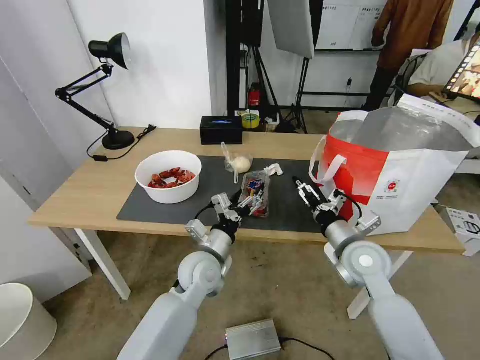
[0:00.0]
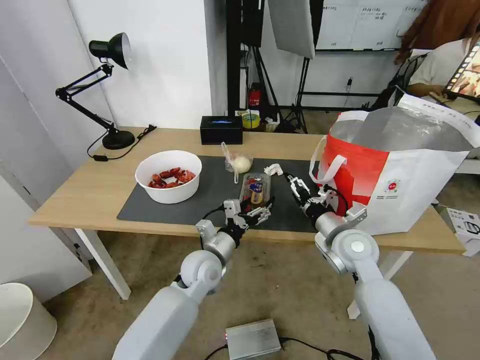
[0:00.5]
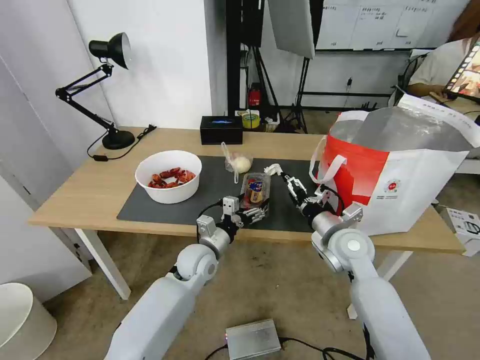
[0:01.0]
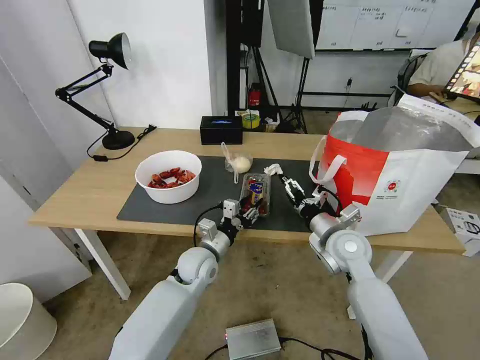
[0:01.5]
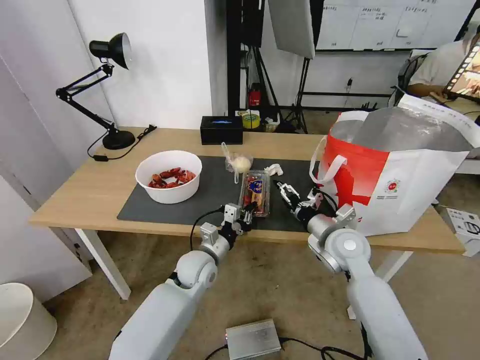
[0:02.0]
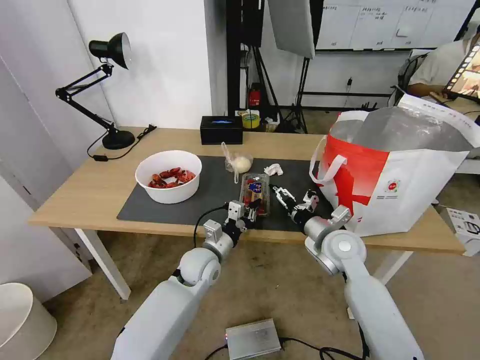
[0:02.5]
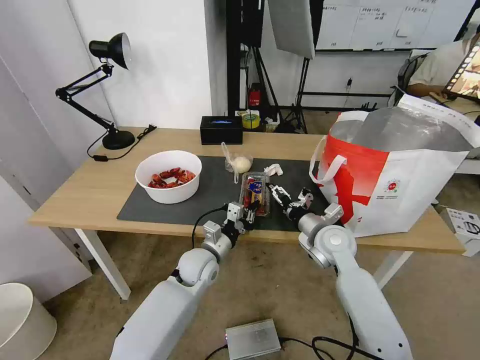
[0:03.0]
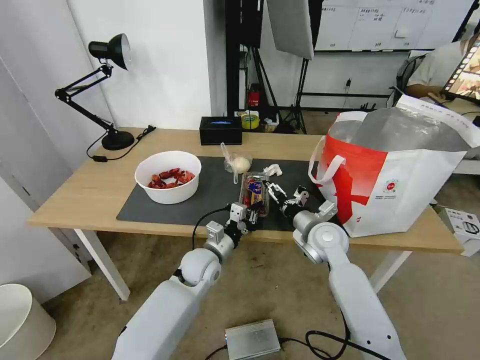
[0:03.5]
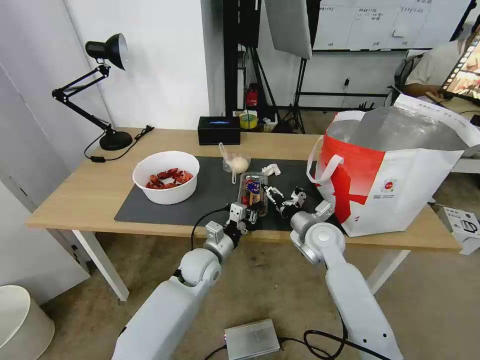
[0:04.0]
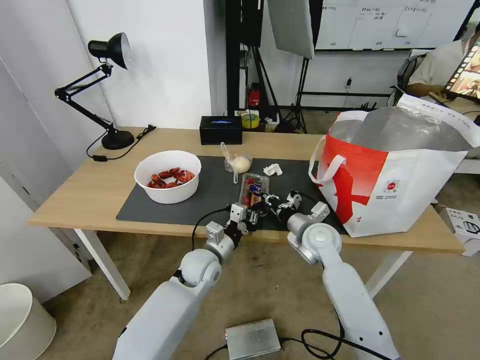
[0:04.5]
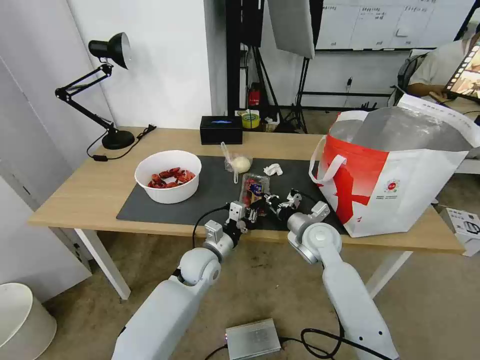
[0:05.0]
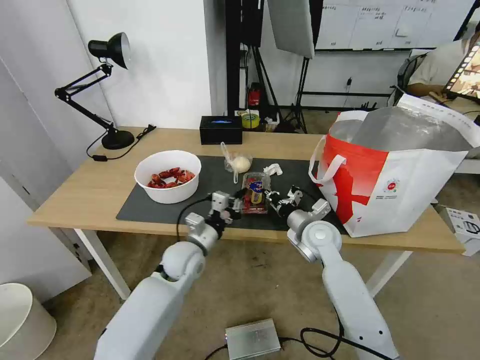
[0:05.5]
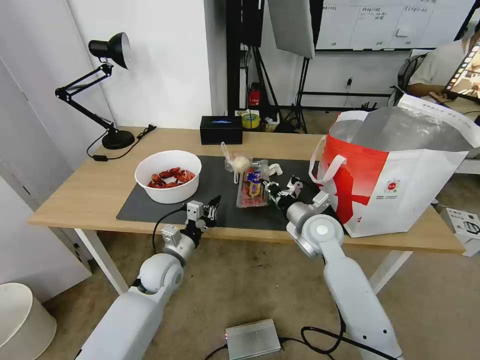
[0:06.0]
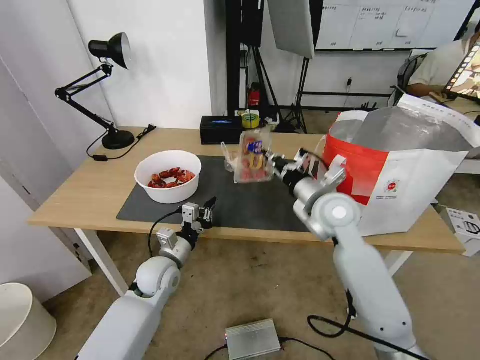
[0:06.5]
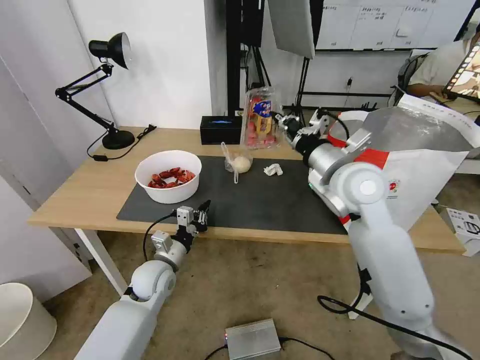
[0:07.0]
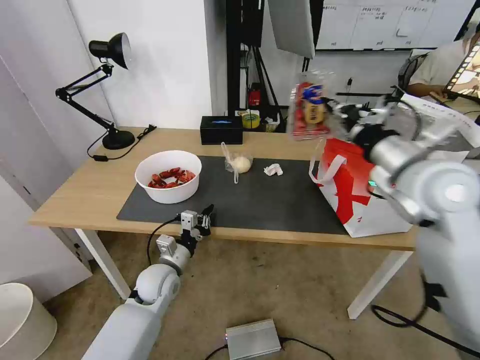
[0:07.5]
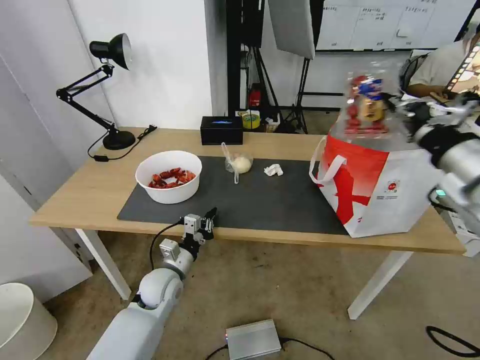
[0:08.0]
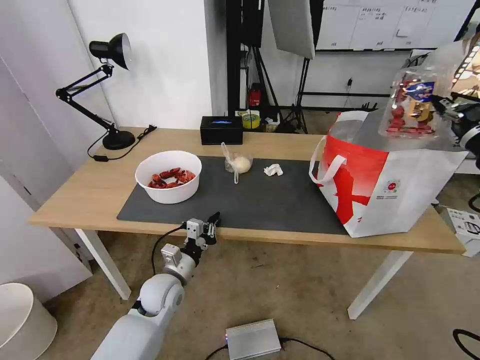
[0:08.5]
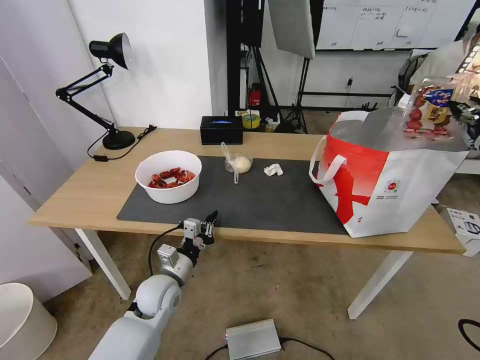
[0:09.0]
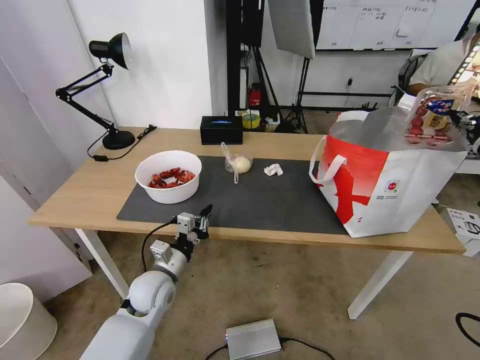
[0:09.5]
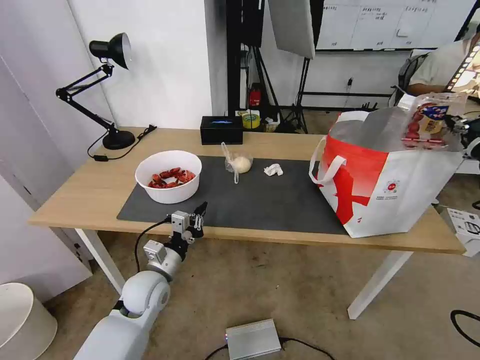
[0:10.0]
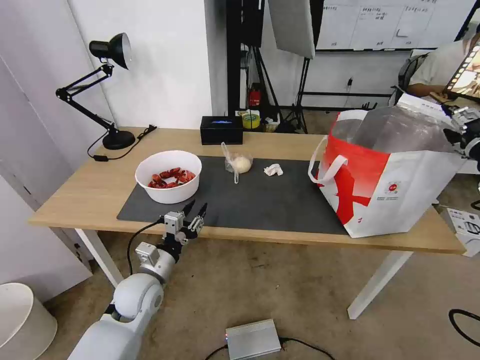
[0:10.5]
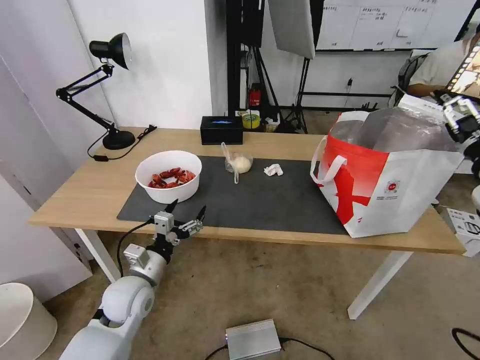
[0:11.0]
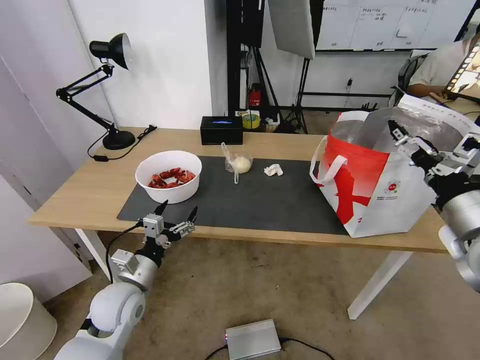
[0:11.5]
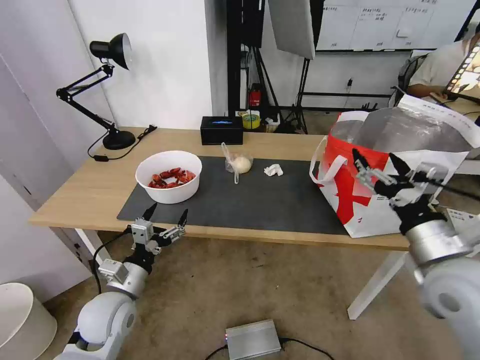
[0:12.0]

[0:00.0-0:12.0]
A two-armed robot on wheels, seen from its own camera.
Task of the whole recording: Pick up the trash from the table and place it into the takeout bag.
0:00.0 to 0:02.0: The left gripper shifts by some 5 cm, and closes up.
0:02.0 to 0:04.0: The right gripper shifts by some 5 cm.
0:04.0 to 0:06.0: The right gripper closes up, while the left gripper moves to the left, some 10 cm.
0:06.0 to 0:08.0: The right gripper moves upward, to the right and backward, some 30 cm.
0:08.0 to 0:10.0: The right gripper goes about 10 cm to the right.
0:10.0 to 0:12.0: The left gripper travels backward and to the left by roughly 10 cm, and opens its fingers; the right gripper moves to the left, downward and backward, some 20 cm, and opens.

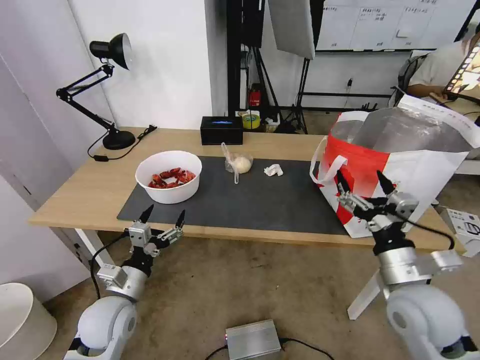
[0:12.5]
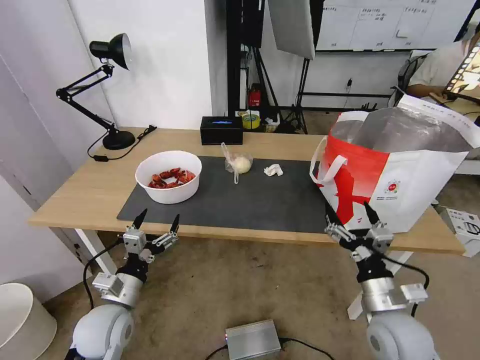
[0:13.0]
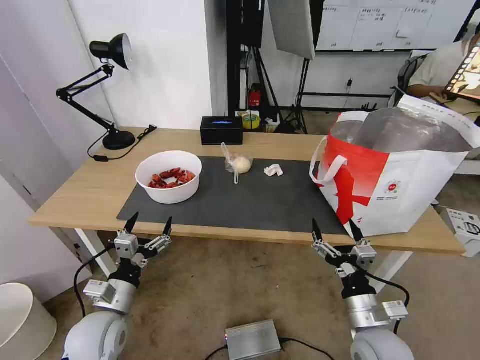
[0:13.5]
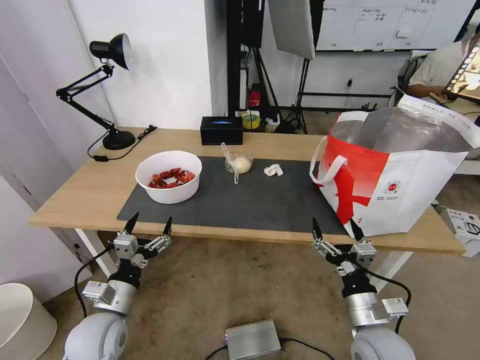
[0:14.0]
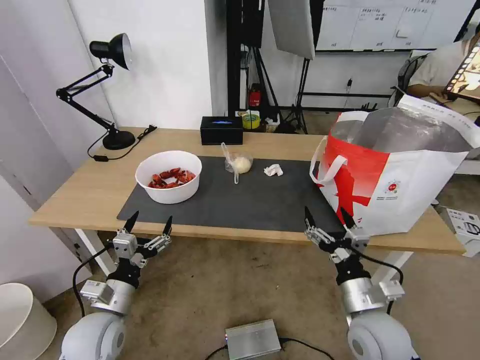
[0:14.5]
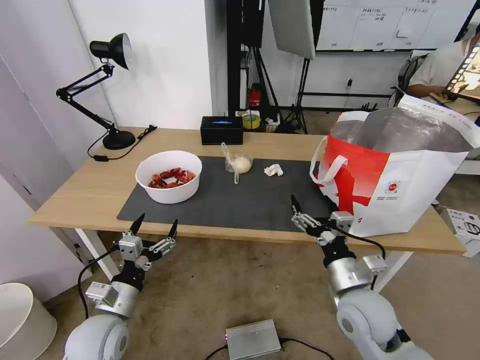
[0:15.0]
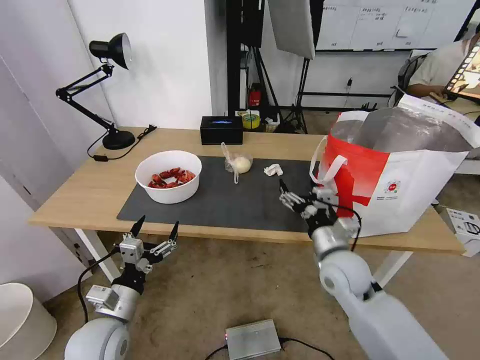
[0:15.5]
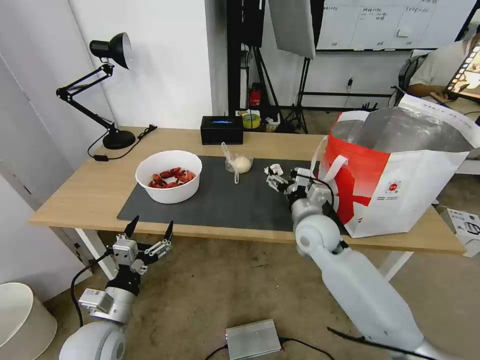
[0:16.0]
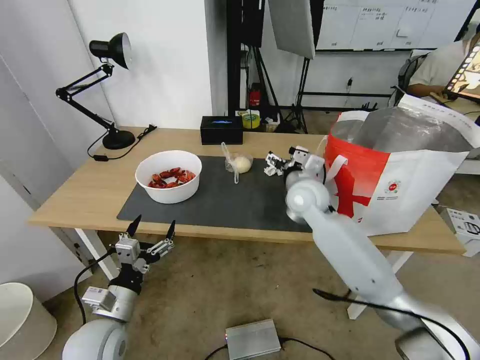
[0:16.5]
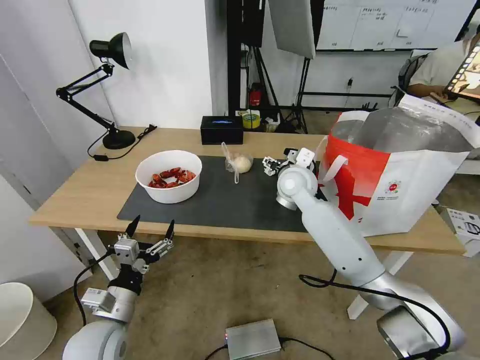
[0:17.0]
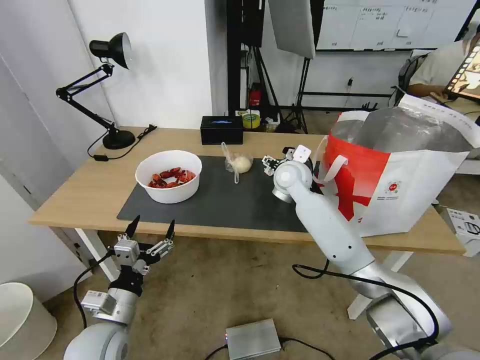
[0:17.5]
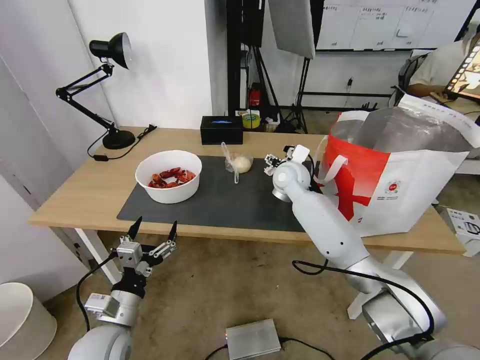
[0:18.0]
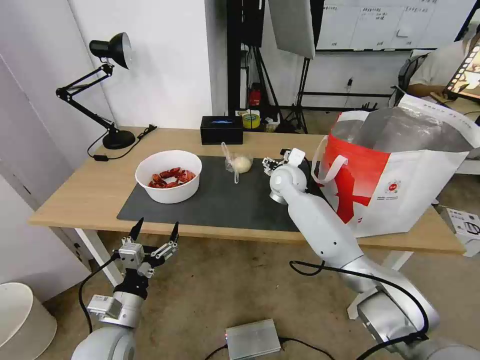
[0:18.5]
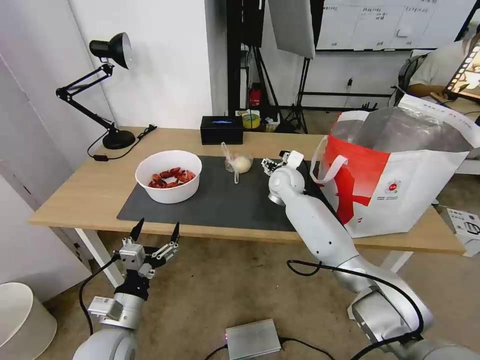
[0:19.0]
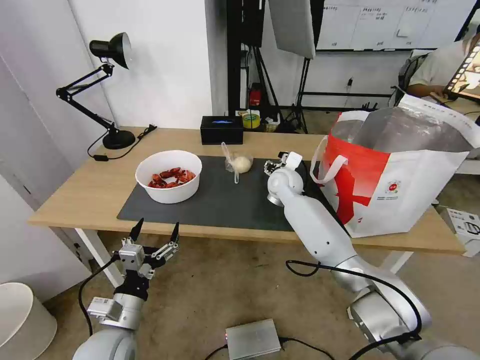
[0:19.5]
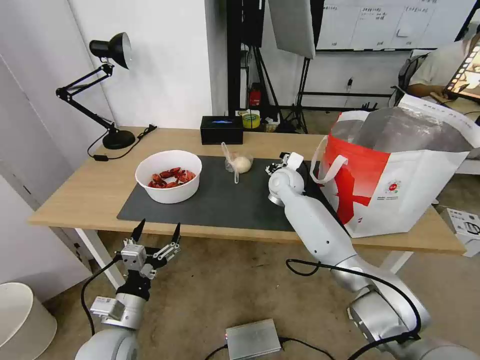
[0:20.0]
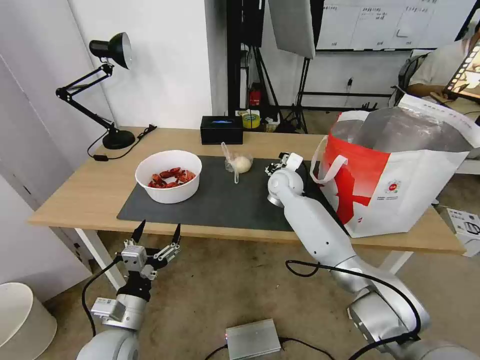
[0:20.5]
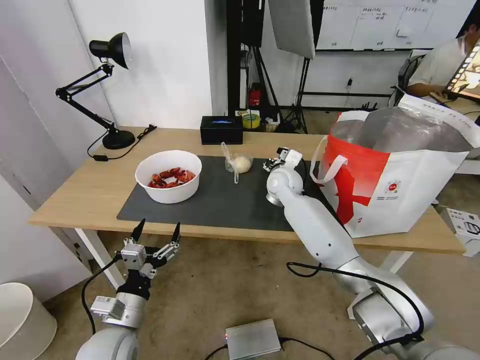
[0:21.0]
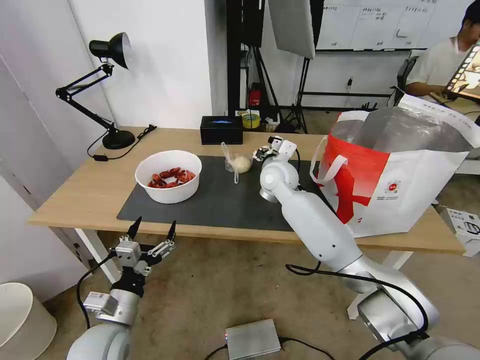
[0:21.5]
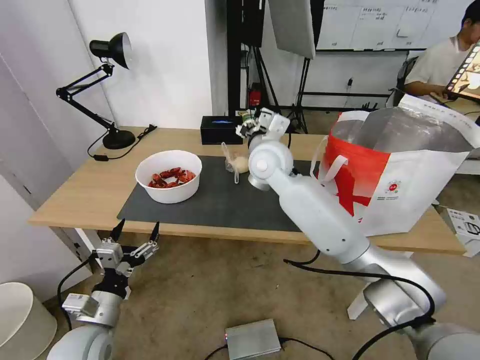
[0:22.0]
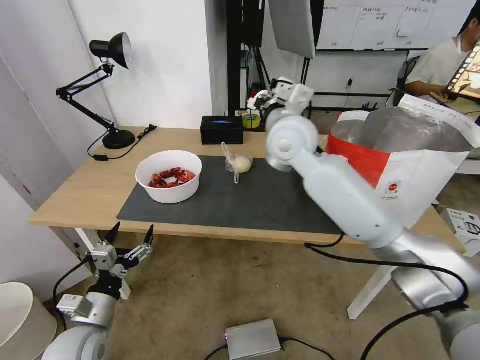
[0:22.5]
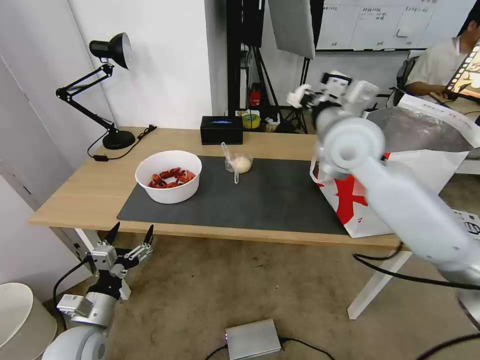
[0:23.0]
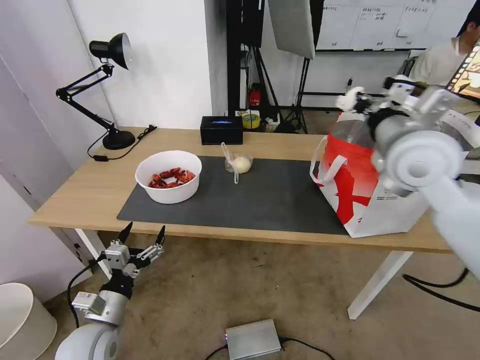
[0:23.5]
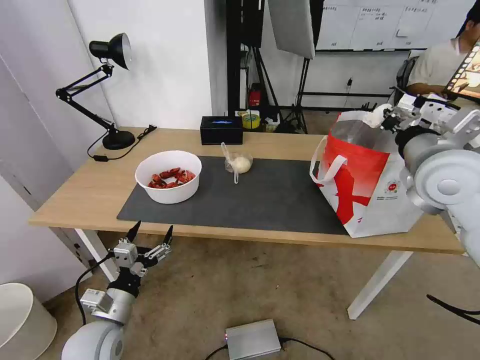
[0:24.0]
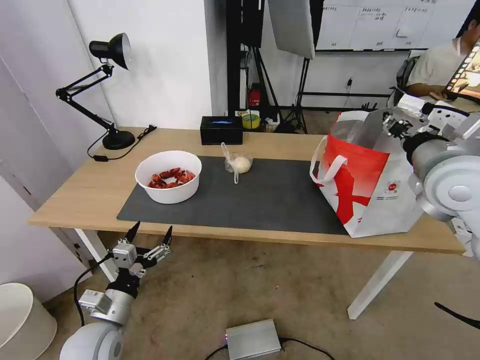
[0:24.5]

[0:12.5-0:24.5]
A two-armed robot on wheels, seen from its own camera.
Task of the whole recording: Pick up the trash from the table and place it into the takeout bag.
0:12.5 to 0:14.5: The right gripper goes about 10 cm downward and to the left.
0:14.5 to 0:16.5: The right gripper moves forward, approximately 30 cm.
0:16.5 to 0:18.5: The right gripper is displaced forward by some 10 cm.
0:18.5 to 0:20.5: The right gripper closes.
0:20.5 to 0:22.5: The left gripper travels to the left by approximately 5 cm; the right gripper moves upward and backward, approximately 20 cm.
0:22.5 to 0:24.5: The right gripper travels to the right and backward by roughly 25 cm, and opens.

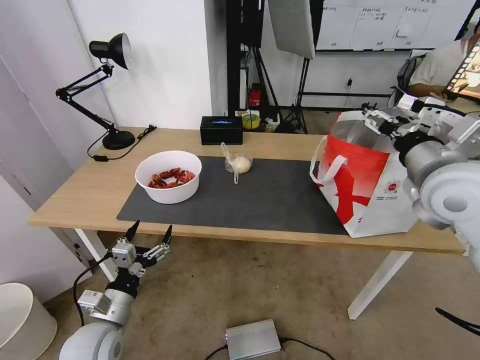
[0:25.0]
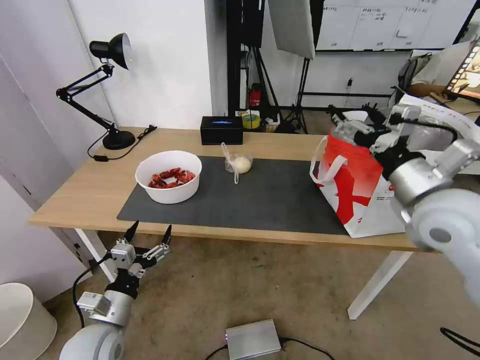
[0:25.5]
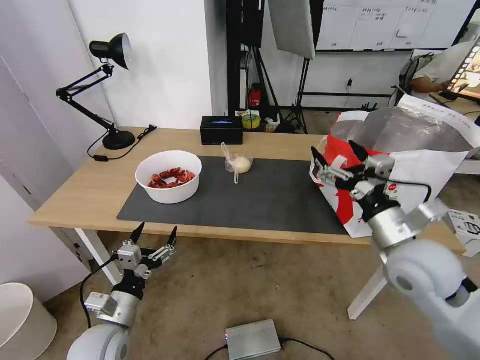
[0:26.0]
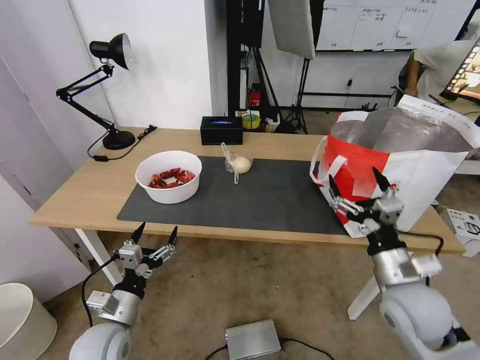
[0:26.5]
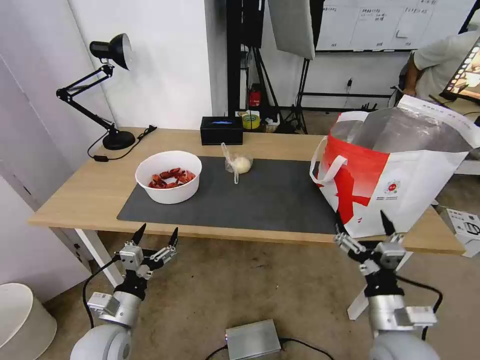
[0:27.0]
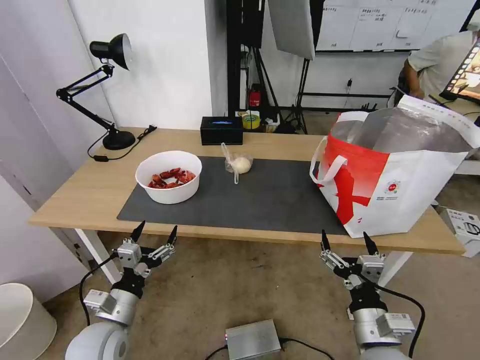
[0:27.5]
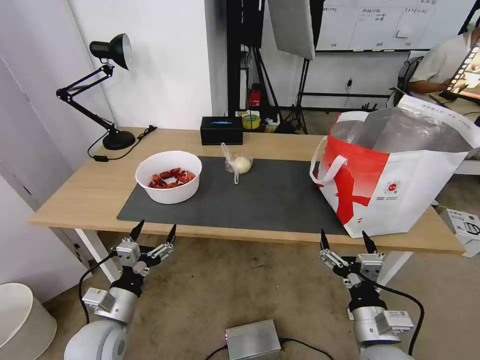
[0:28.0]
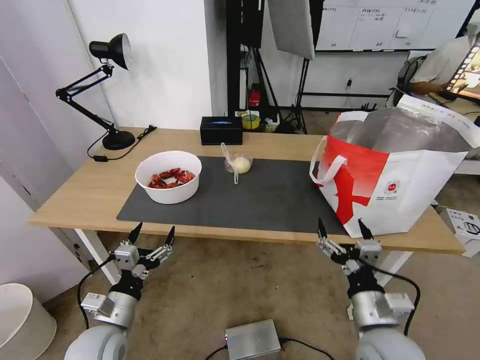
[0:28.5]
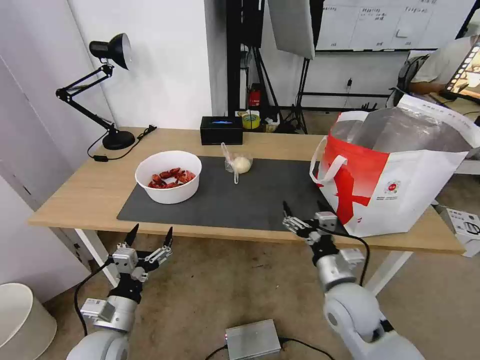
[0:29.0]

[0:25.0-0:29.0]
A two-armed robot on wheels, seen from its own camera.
Task of the whole recording: Pick up the trash from the table and place it into the takeout bag.
0:25.0 to 0:27.0: The right gripper shifts approximately 30 cm downward and backward.
0:27.0 to 0:29.0: The right gripper is displaced forward and to the left by some 10 cm.
